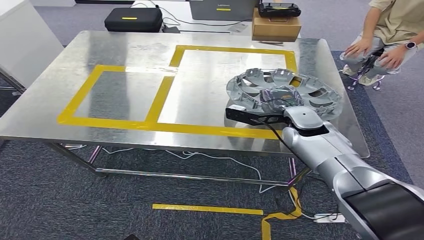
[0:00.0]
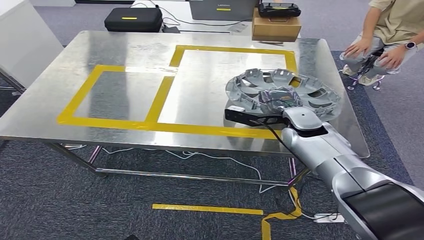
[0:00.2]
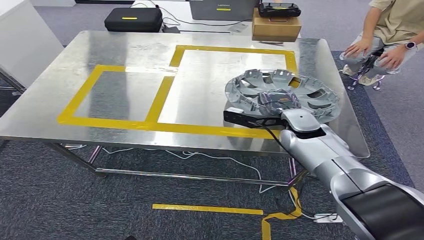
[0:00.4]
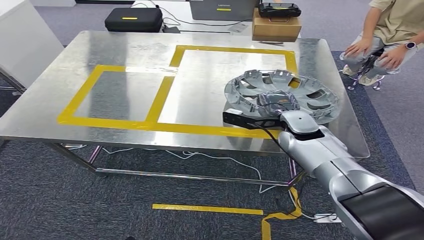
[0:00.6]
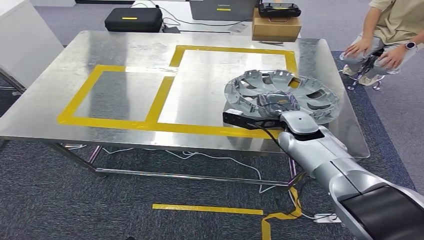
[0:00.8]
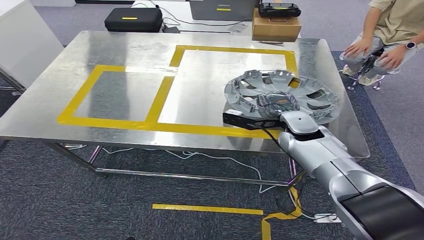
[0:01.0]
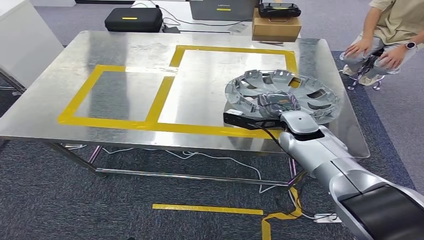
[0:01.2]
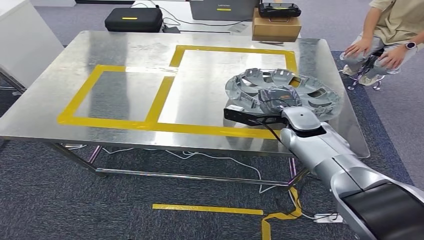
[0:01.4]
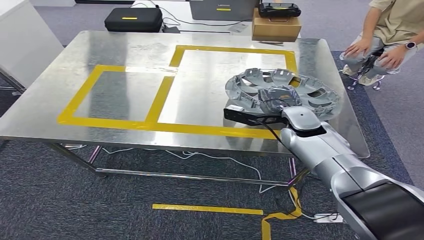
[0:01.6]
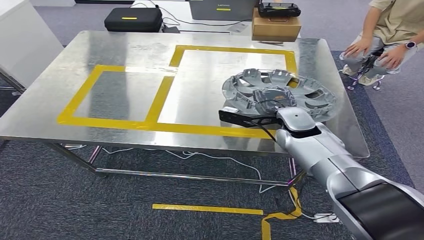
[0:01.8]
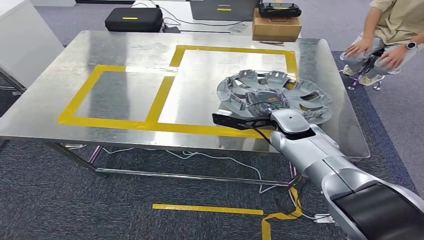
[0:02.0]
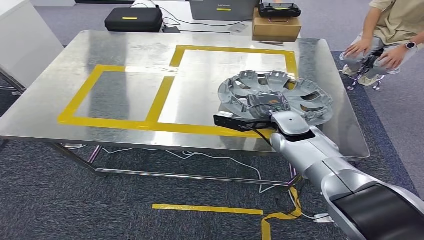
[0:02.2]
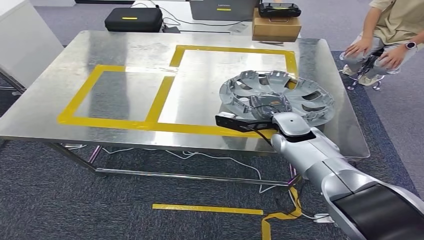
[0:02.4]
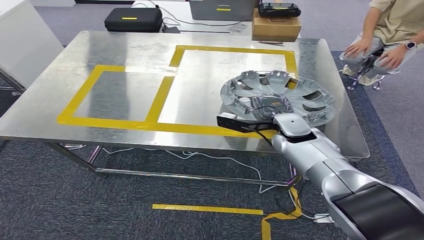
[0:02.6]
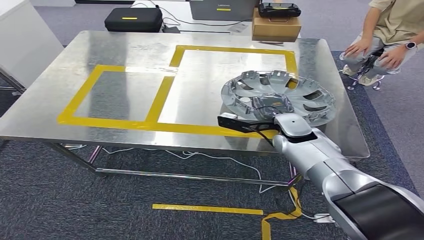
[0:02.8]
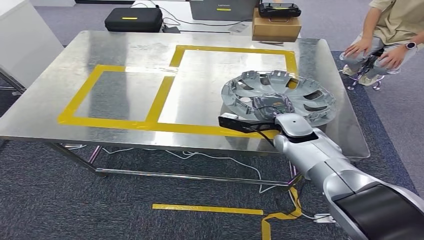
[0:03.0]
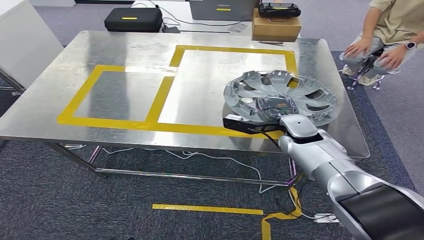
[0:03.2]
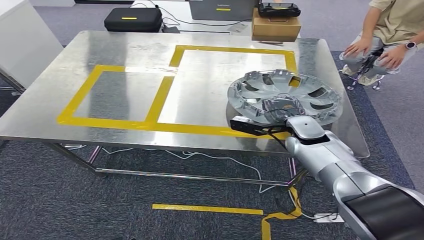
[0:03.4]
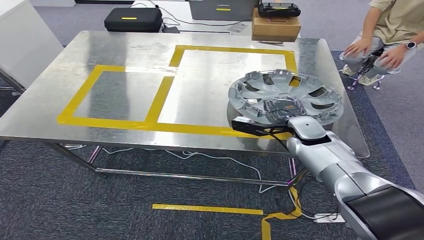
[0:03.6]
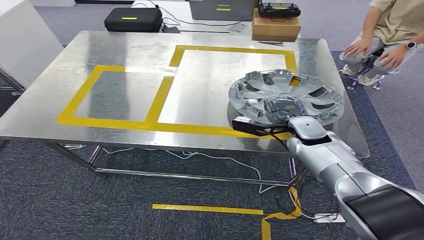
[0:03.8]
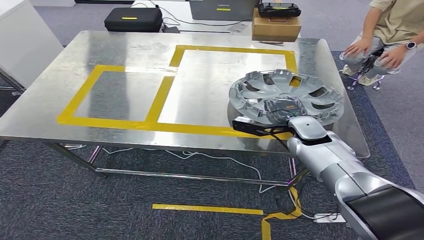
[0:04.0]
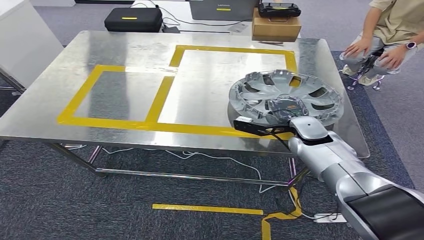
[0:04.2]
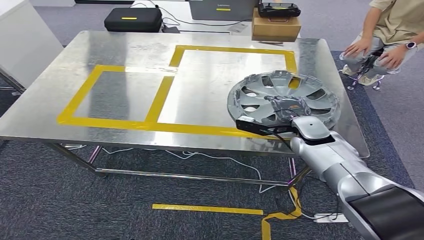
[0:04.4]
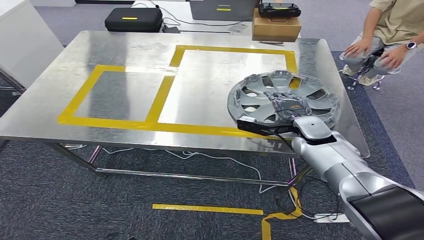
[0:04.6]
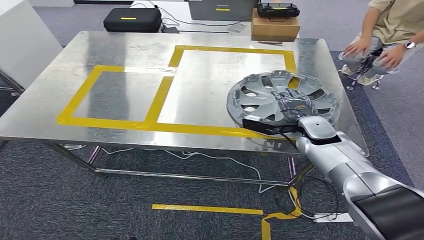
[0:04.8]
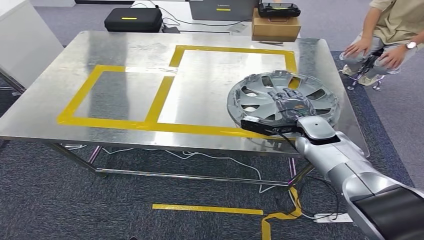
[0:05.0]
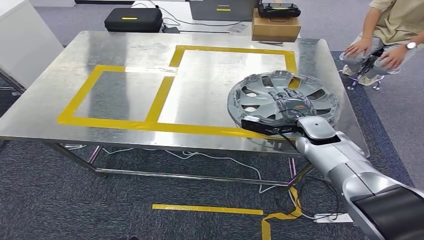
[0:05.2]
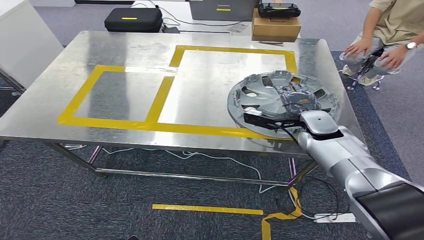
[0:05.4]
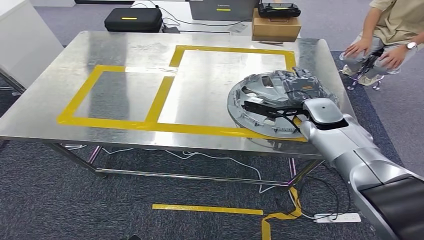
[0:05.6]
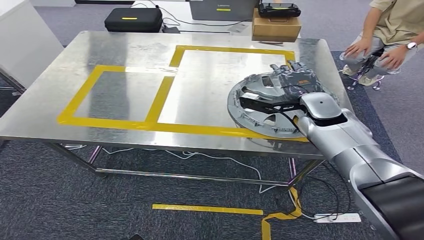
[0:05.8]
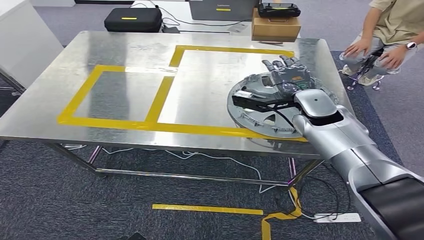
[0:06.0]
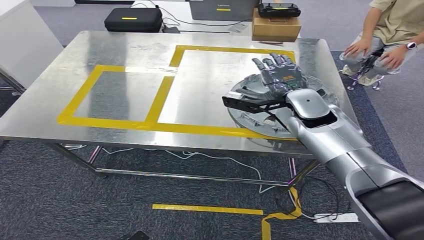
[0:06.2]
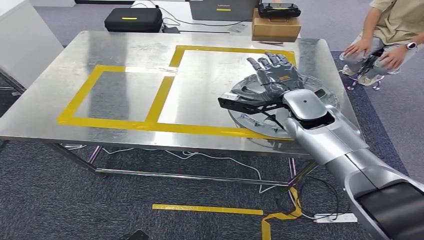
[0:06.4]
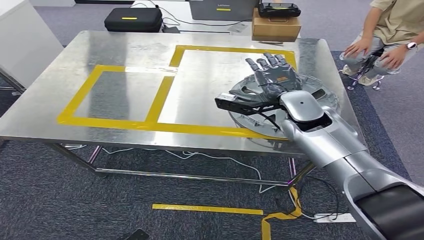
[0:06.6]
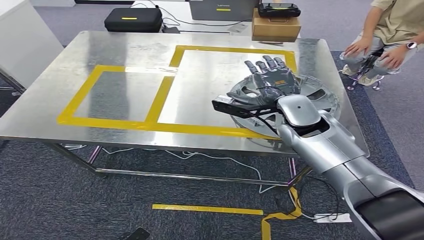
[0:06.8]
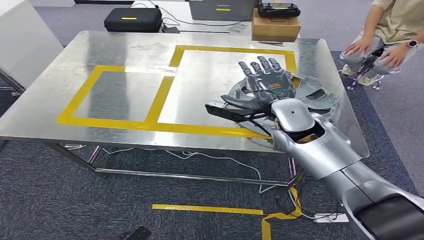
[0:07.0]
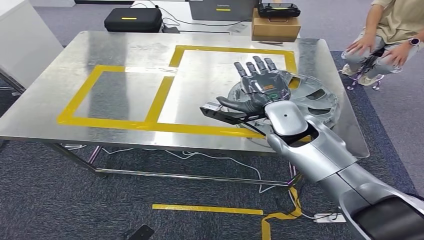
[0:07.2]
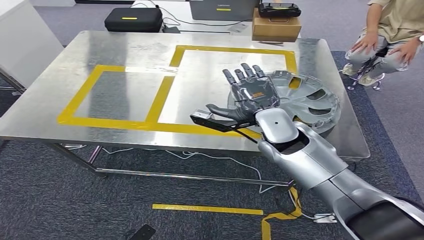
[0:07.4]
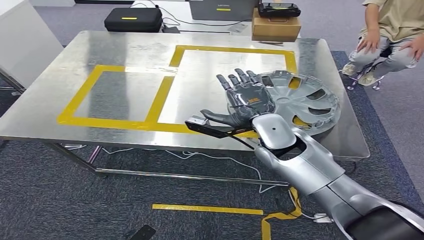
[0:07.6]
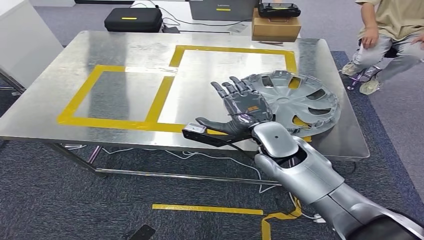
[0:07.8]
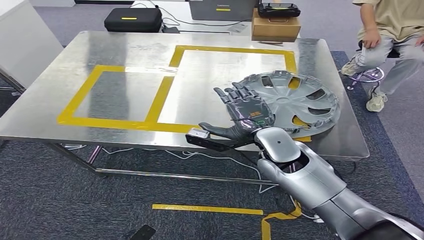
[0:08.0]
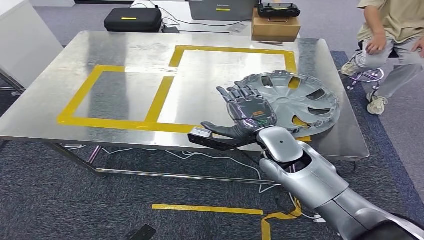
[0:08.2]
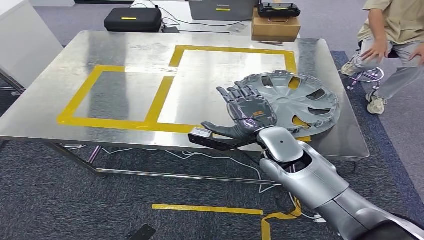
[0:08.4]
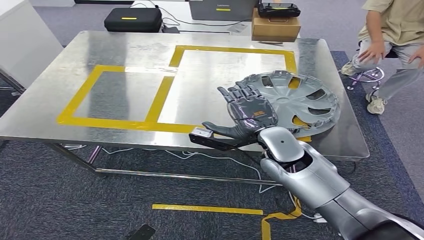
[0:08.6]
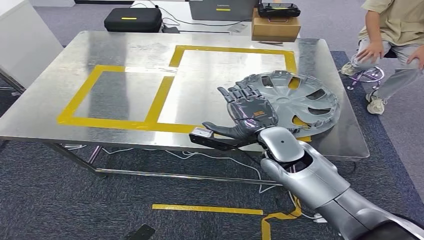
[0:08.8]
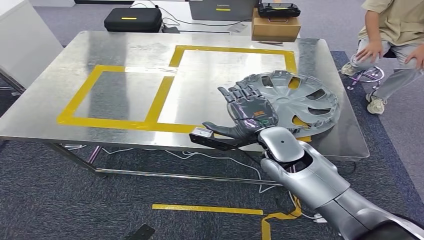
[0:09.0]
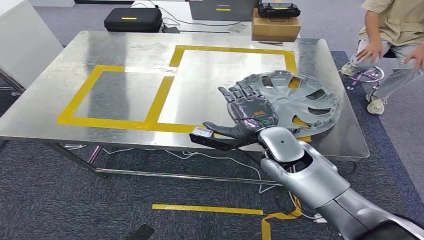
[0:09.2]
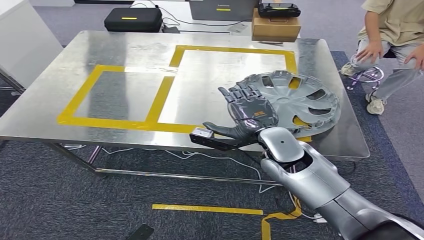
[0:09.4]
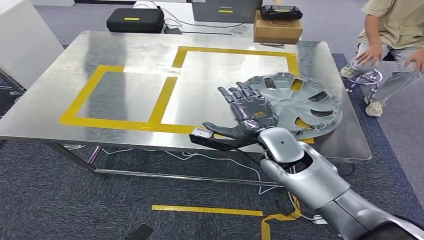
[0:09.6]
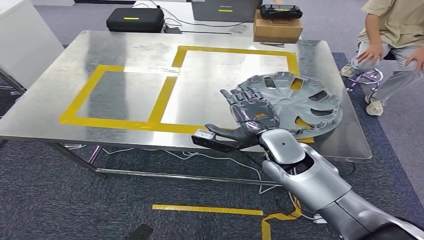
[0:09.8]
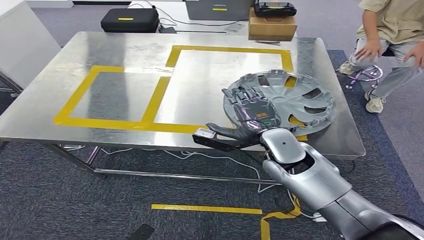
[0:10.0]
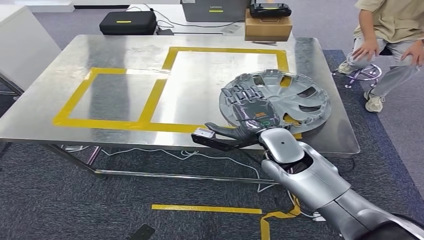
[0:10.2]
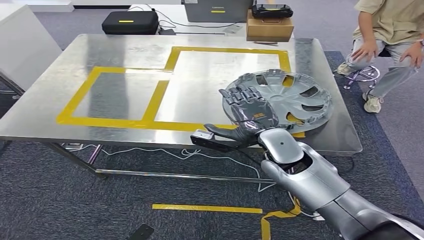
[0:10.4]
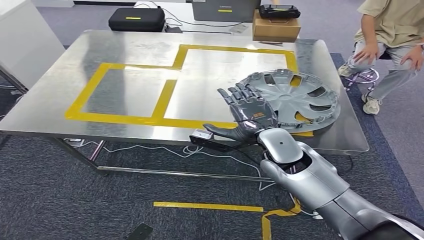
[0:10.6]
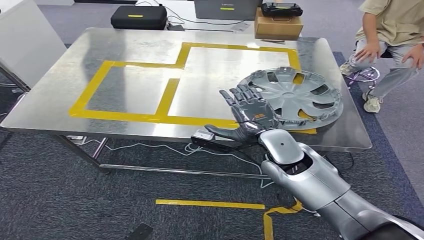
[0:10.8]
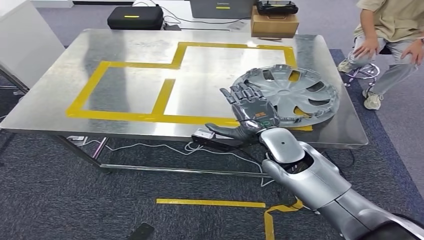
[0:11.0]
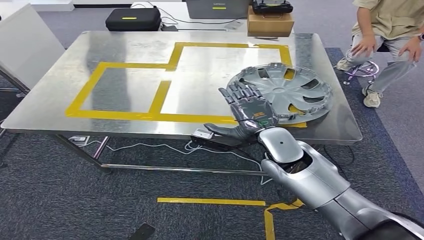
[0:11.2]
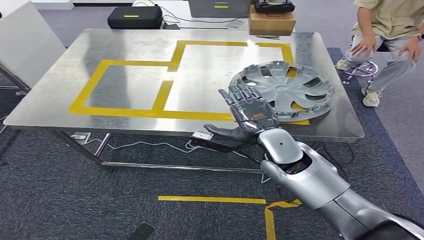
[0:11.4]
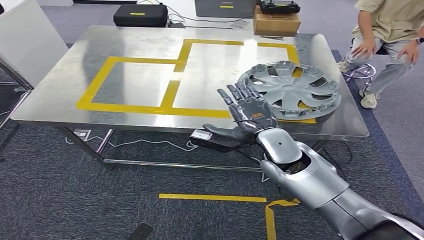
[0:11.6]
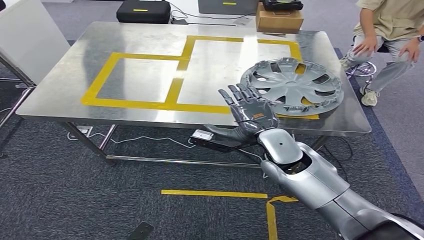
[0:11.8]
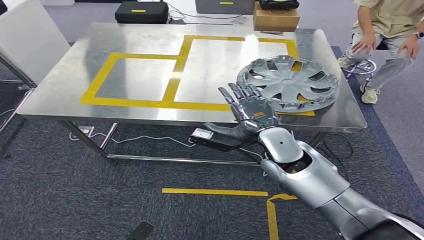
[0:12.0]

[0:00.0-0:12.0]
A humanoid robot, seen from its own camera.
Step, 0:00.0 to 0:07.4: Insert the small component into the corresponding slot on the workbench.
0:00.0 to 0:04.4: The hands make only small movements.
0:04.4 to 0:06.0: The right hand moves upward, approximately 10 cm.
0:06.0 to 0:07.6: The right hand heads backward and to the left, covering roughly 15 cm.
0:07.6 to 0:09.0: There are only small adjustments of the hands.
0:09.0 to 0:10.4: Both hands stay about where they are.

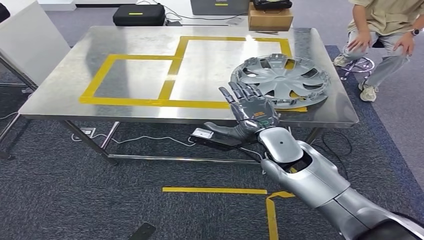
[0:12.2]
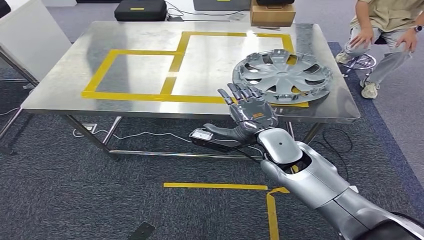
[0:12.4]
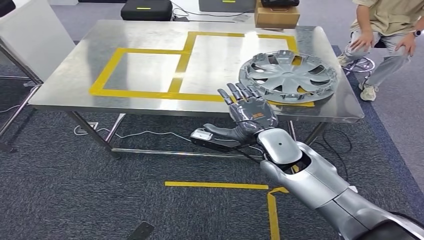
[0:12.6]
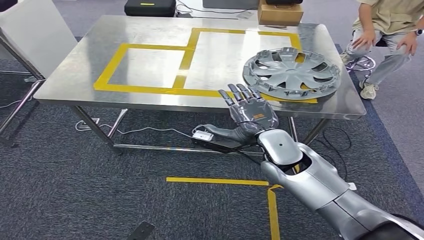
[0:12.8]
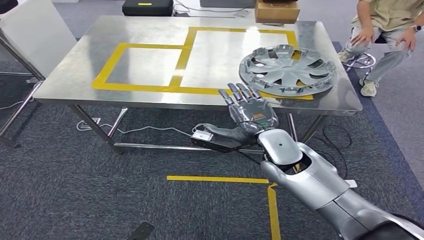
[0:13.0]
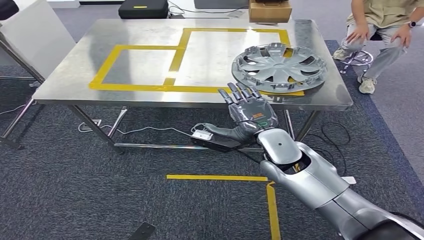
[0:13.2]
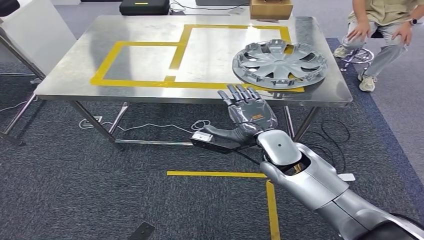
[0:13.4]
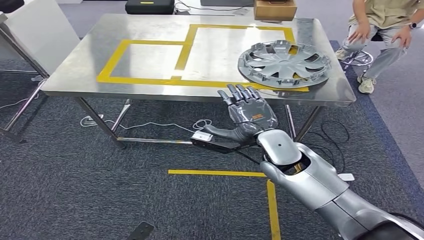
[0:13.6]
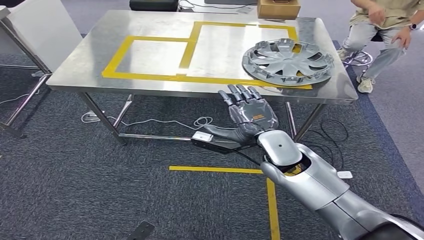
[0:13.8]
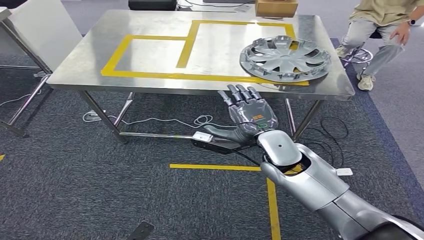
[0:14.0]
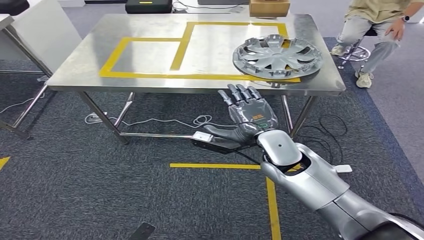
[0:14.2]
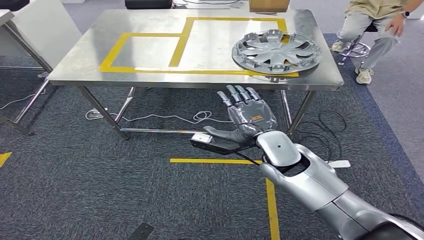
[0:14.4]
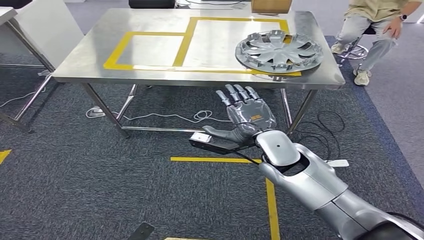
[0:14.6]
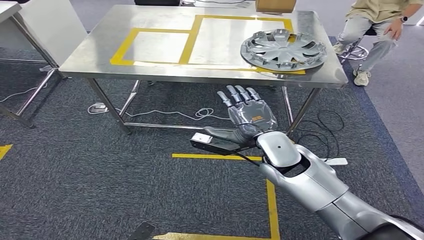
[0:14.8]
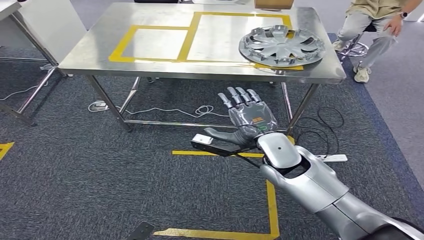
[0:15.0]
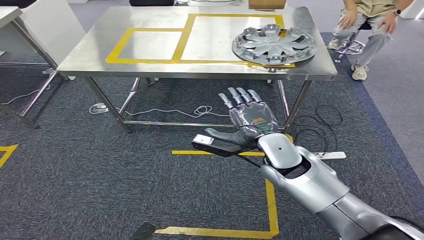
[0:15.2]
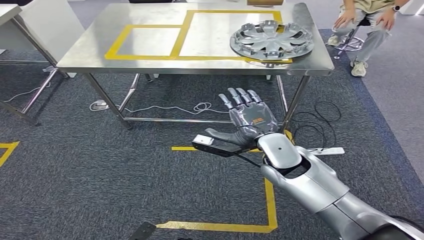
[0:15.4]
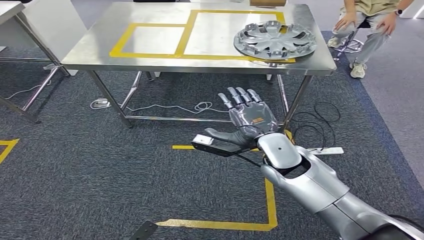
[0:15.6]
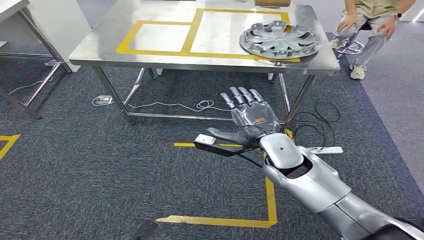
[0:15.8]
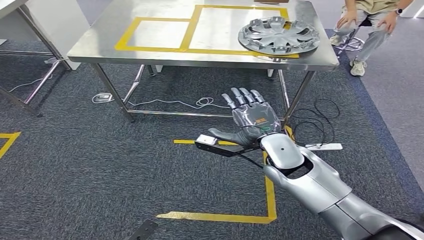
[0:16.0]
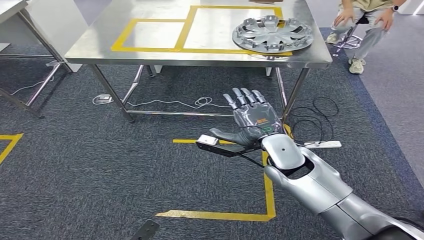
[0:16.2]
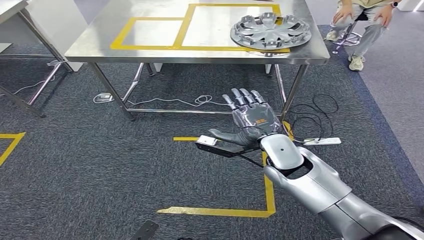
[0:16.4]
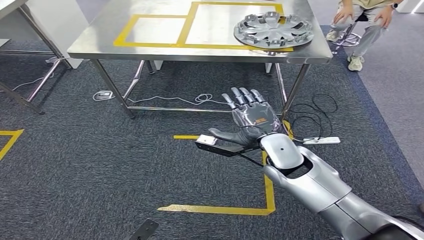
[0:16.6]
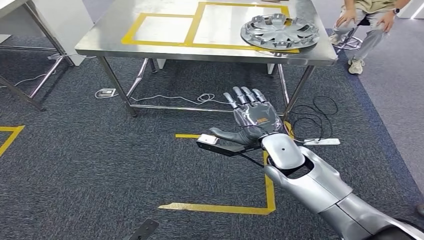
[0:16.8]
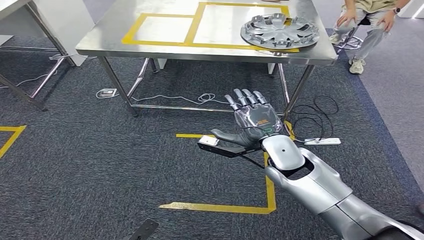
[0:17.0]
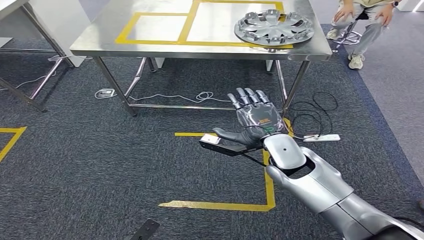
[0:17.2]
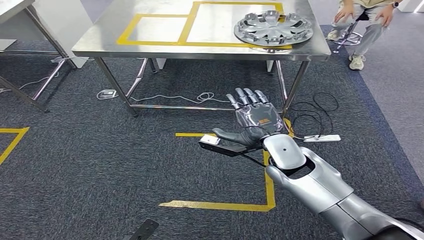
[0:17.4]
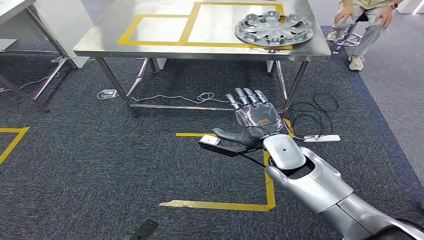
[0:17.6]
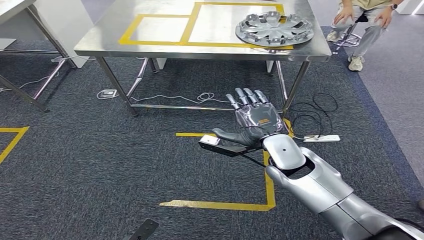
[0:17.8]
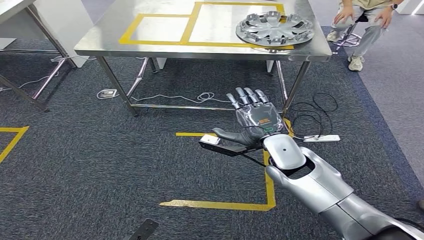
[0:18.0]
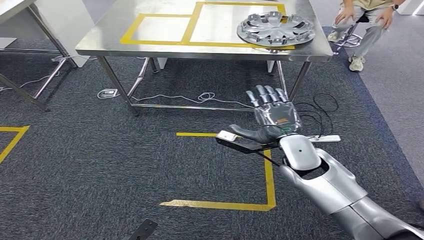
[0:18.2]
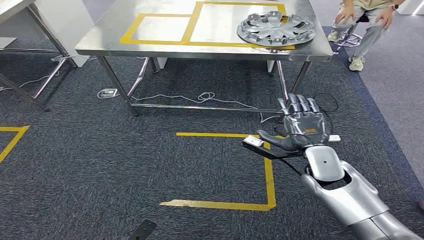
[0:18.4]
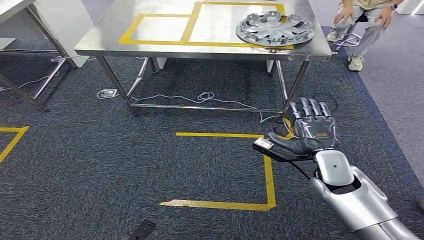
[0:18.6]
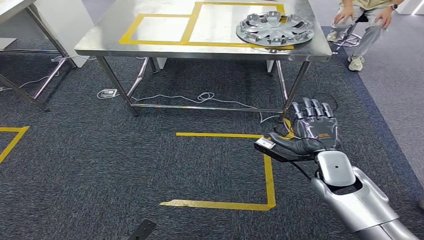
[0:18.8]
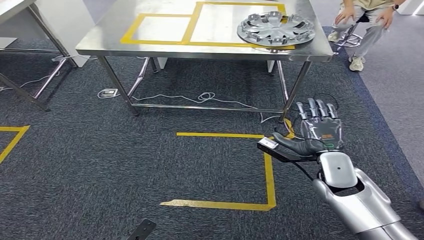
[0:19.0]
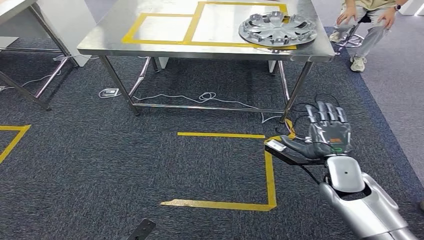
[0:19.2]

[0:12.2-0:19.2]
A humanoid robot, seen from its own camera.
0:16.4 to 0:17.8: Both hands stay put.
0:17.8 to 0:19.2: The right hand goes approximately 15 cm to the right and downward.
